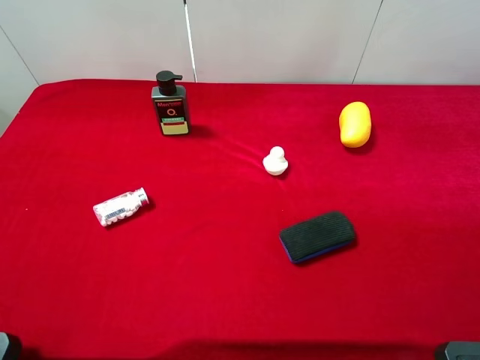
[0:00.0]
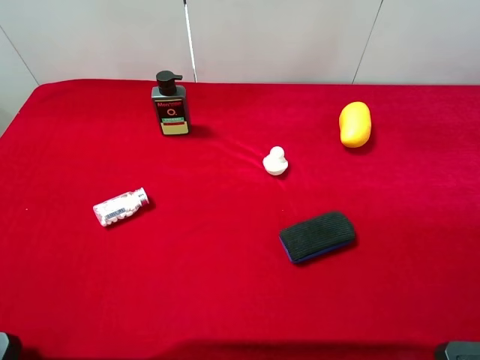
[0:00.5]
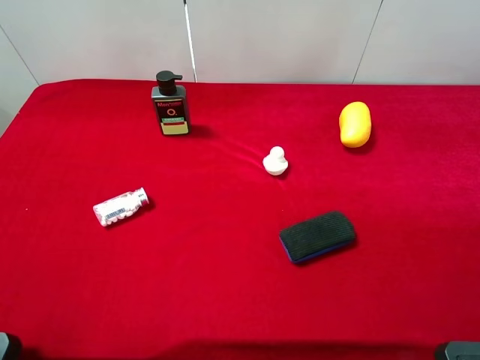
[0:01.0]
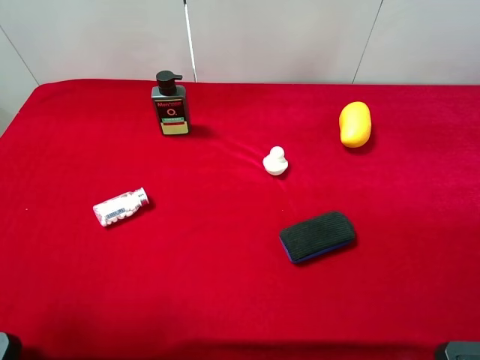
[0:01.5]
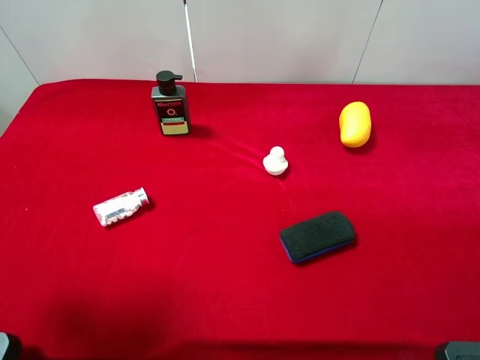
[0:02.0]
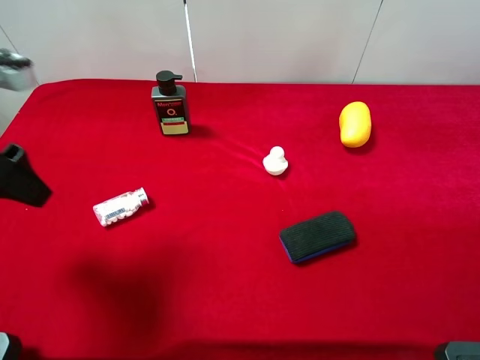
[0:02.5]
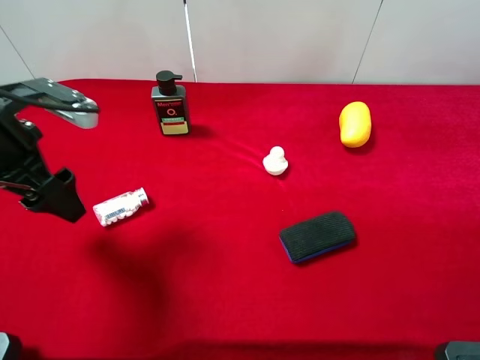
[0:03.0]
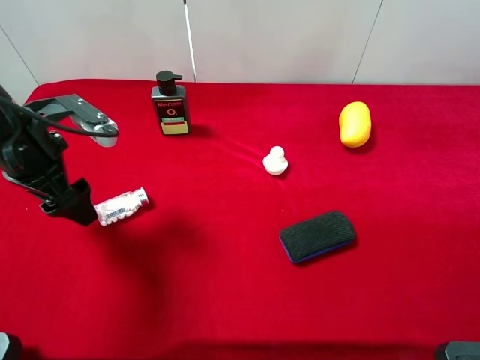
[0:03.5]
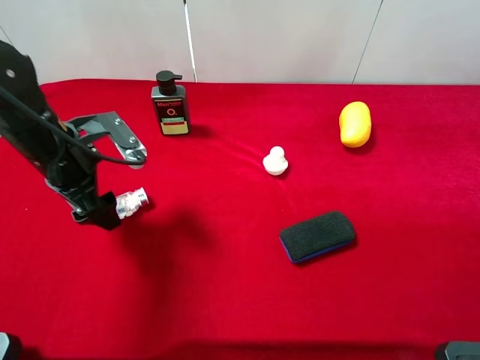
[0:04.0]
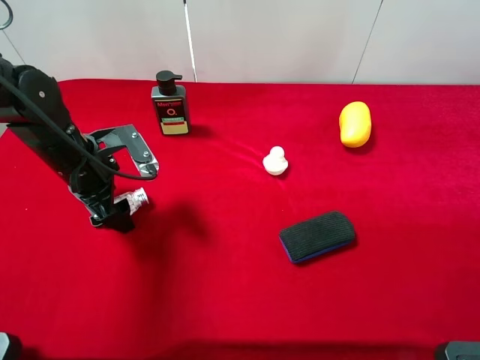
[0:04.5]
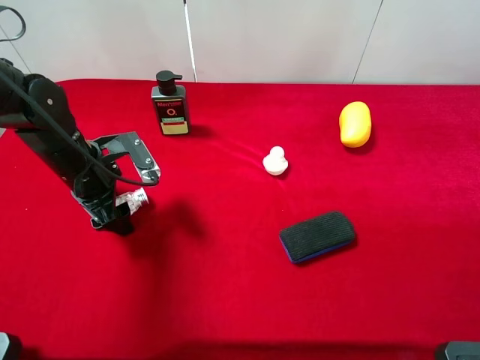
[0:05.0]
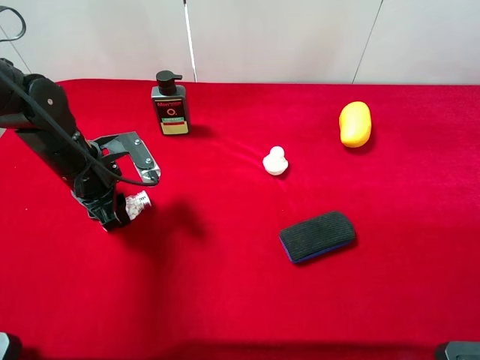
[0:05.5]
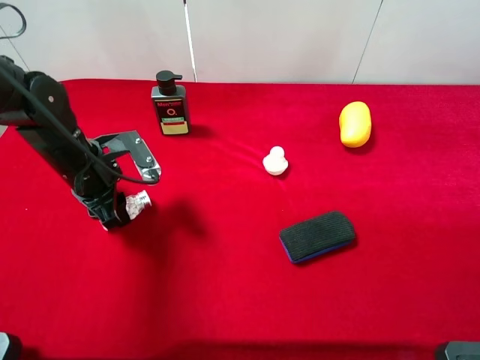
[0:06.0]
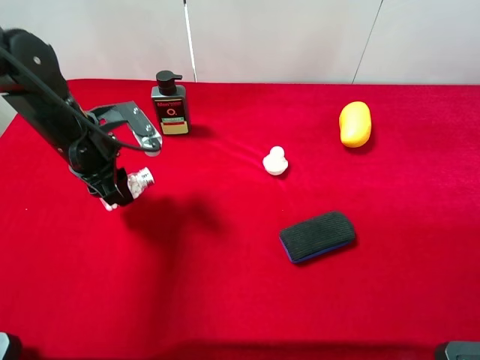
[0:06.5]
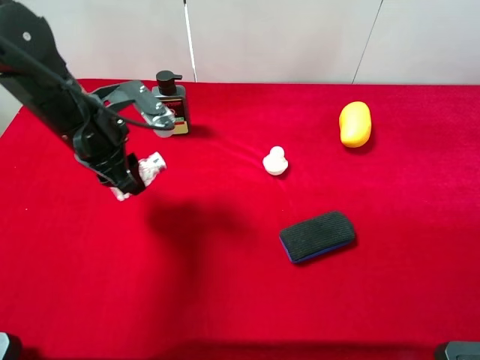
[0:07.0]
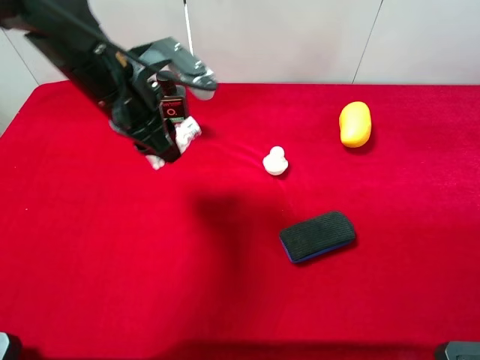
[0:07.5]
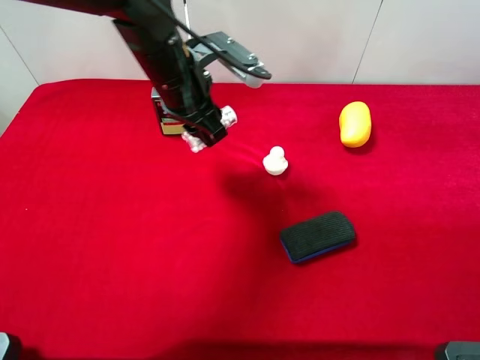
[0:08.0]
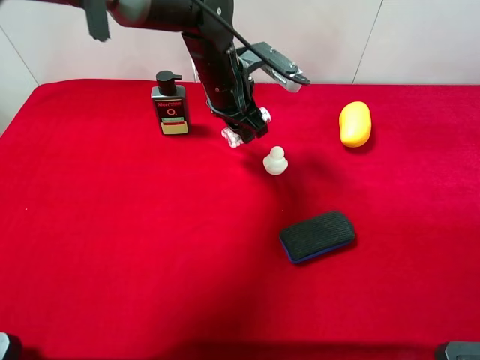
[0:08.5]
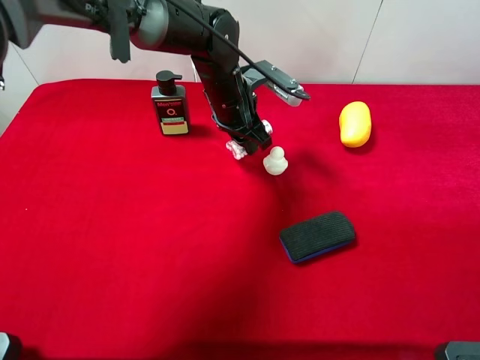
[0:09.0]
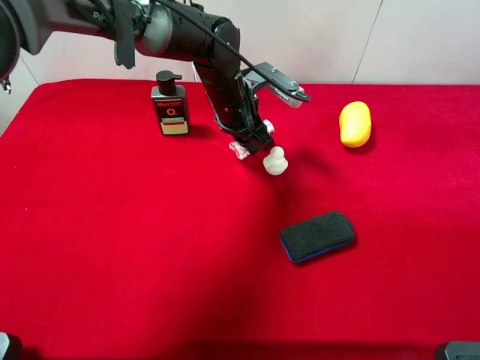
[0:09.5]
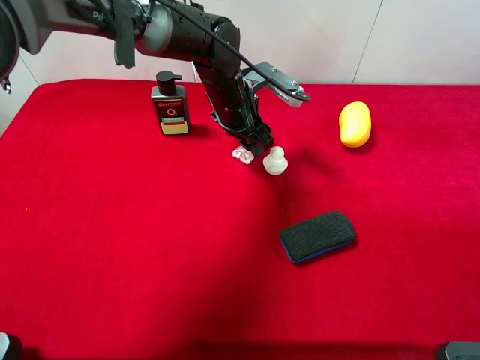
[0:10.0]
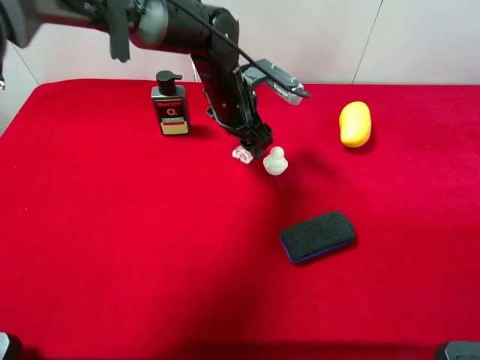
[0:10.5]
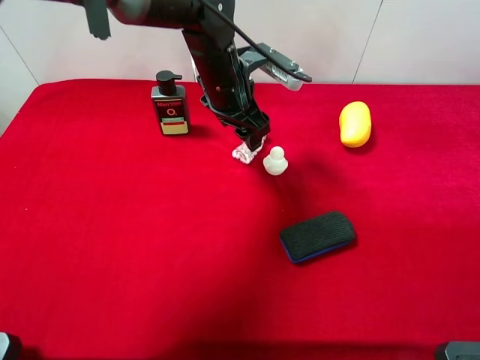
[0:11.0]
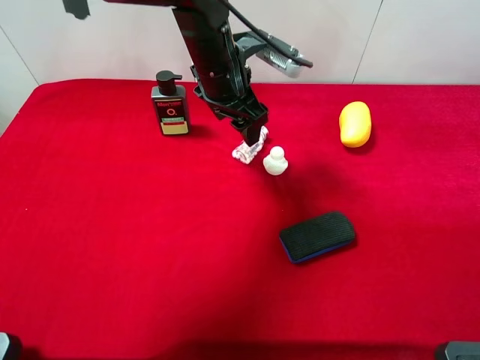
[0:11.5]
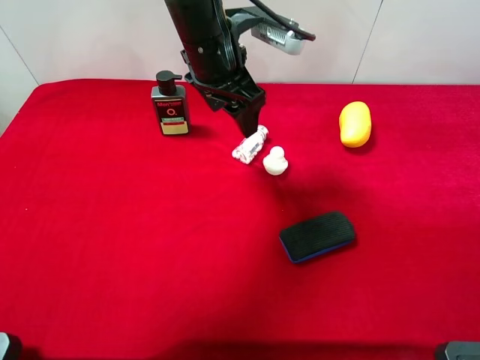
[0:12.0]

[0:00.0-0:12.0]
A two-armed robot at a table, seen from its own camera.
Task of the whole recording: the gripper move the object.
Step, 0:00.0 to 0:05.5: Grasp the mint candy with the left gripper.
0:00.0 to 0:02.0: The left gripper travels forward by roughly 15 cm.
0:02.0 to 0:04.0: The left gripper shifts roughly 20 cm downward, forward and to the right.
0:04.0 to 0:06.0: The left gripper closes its fingers.
0:06.0 to 0:08.0: The left gripper moves to the right, upward and forward, some 20 cm.
0:08.0 to 0:10.0: The left gripper shifts some 10 cm downward, to the right and forward, and opens its fingers.
0:10.0 to 0:12.0: The left gripper shifts about 10 cm upward.

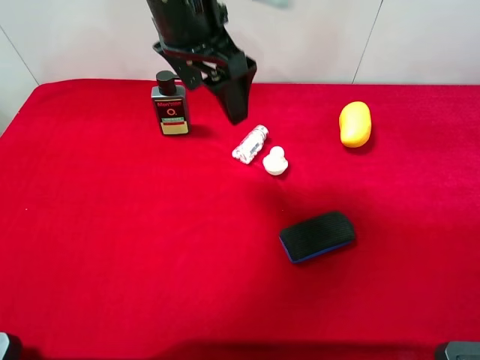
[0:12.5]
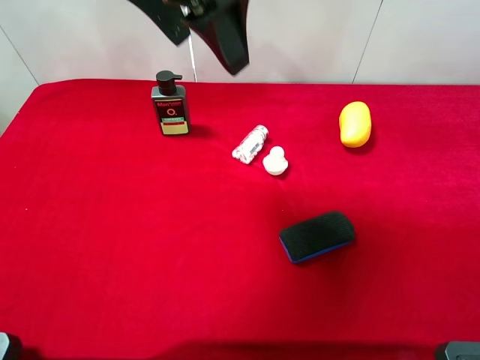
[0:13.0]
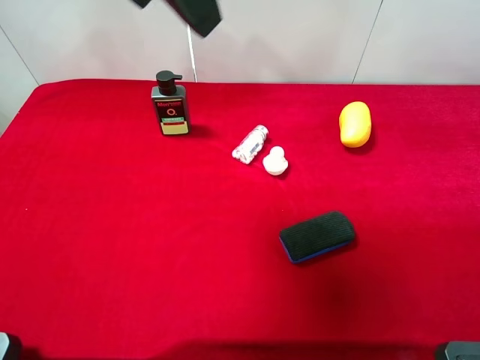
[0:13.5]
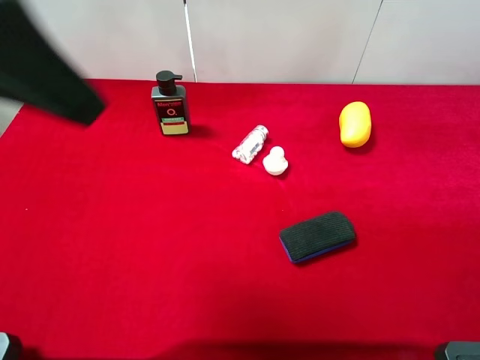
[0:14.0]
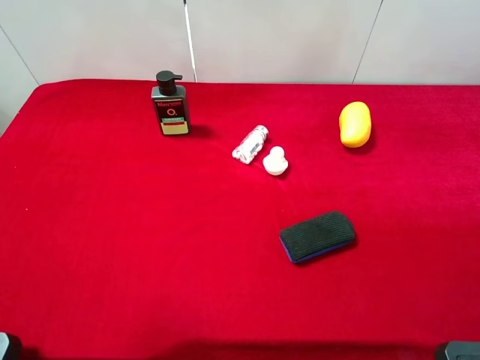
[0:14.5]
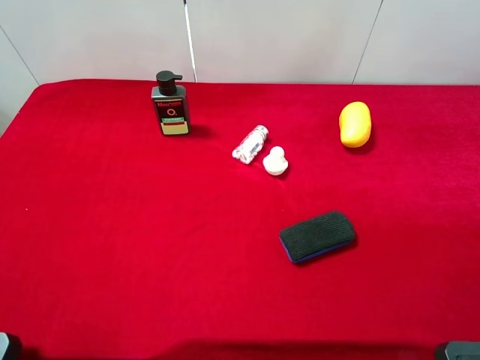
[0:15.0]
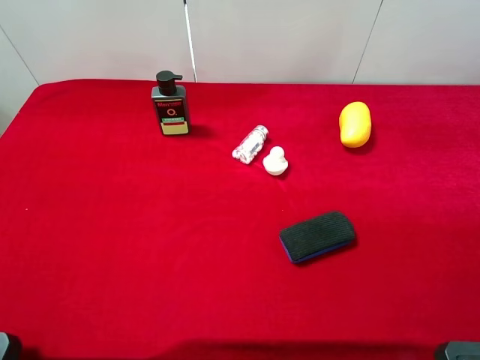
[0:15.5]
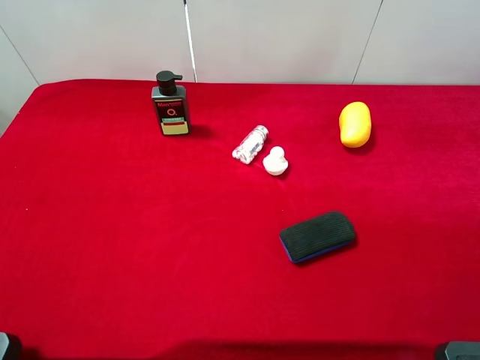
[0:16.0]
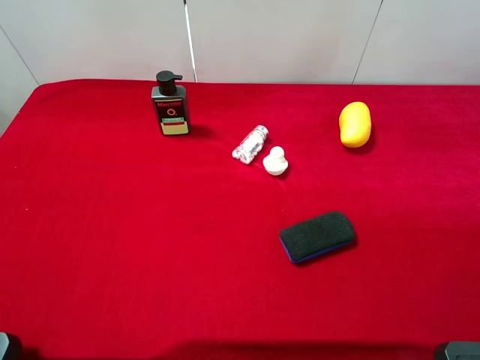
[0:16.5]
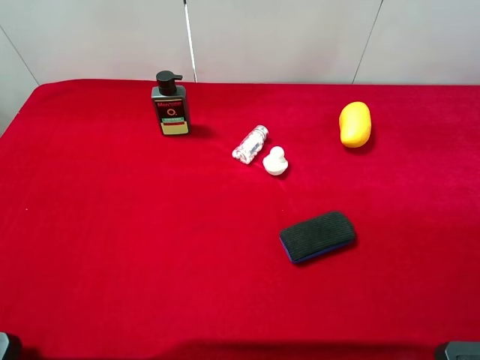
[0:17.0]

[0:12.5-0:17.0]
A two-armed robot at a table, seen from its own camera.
Task of the whole recording: the gripper move the object.
0:12.5 to 0:14.5: The left gripper heads backward and to the left, covering approximately 30 cm.
0:14.5 to 0:17.0: The left gripper is displaced downward, backward and to the left by about 15 cm.
